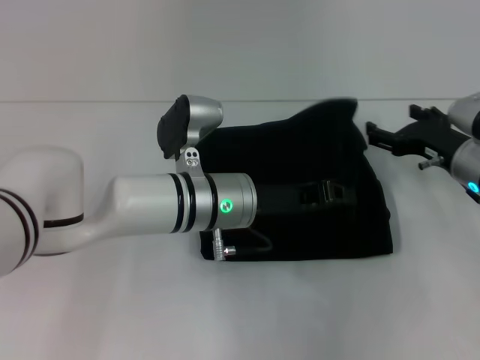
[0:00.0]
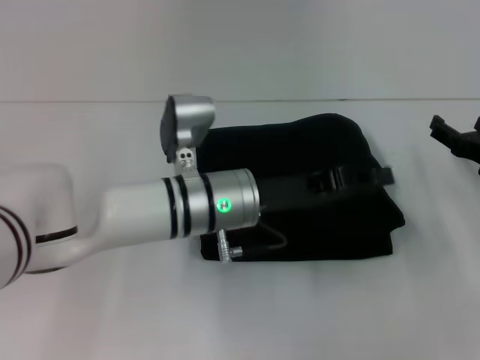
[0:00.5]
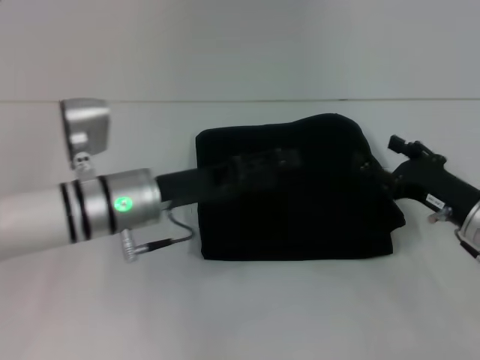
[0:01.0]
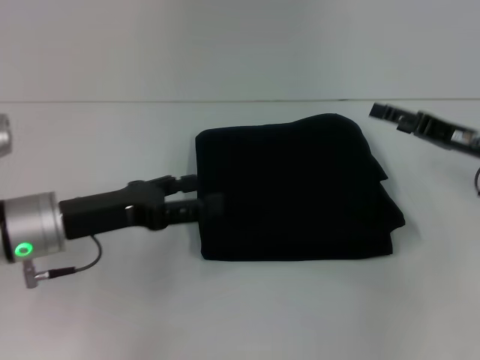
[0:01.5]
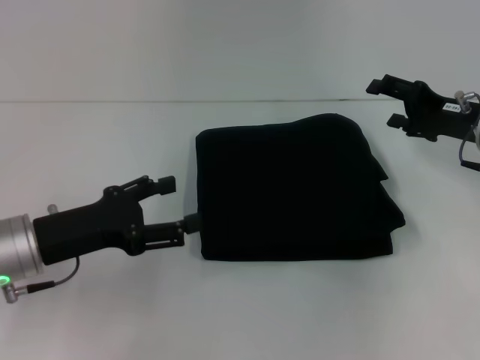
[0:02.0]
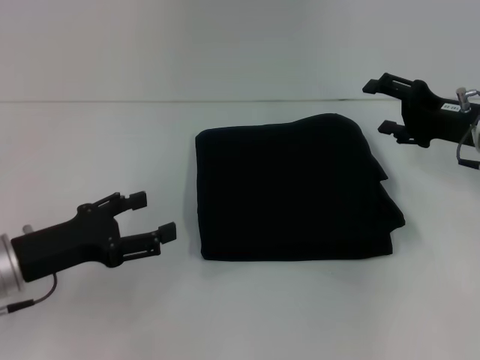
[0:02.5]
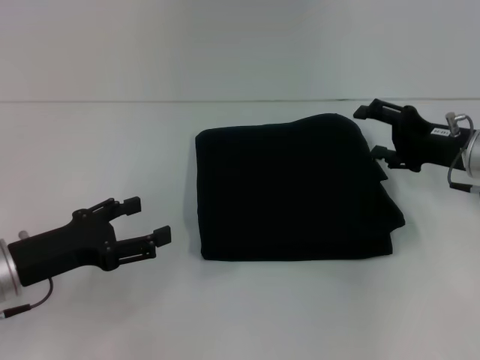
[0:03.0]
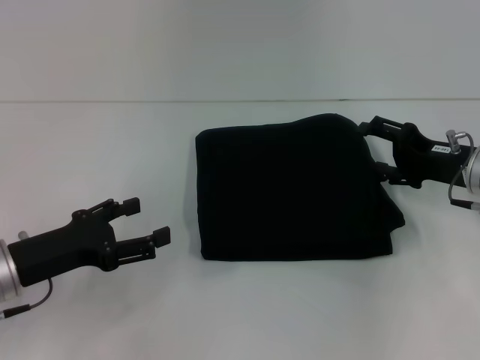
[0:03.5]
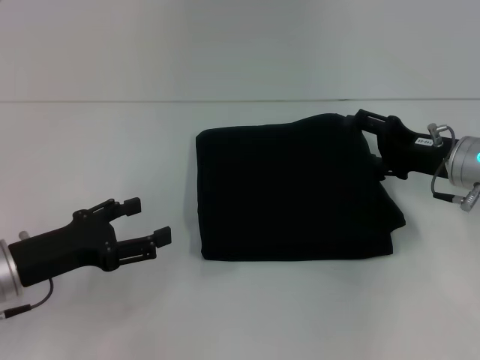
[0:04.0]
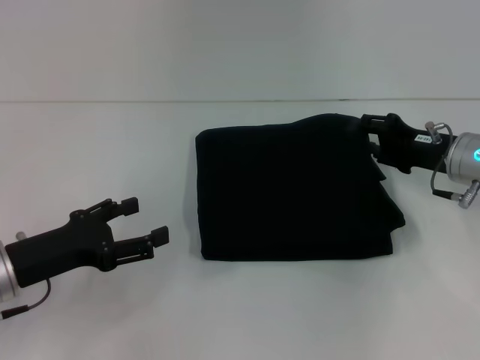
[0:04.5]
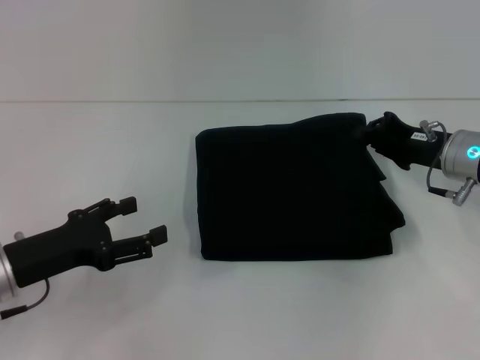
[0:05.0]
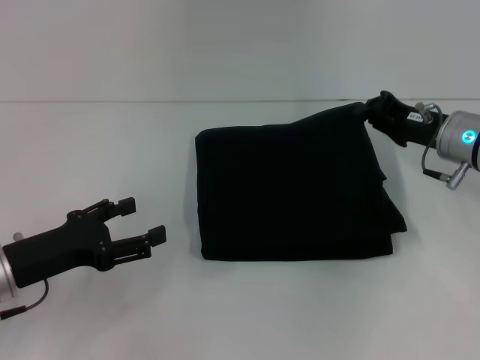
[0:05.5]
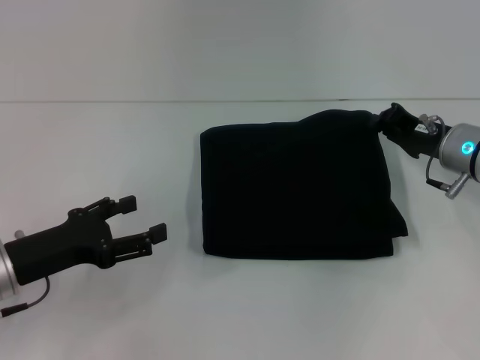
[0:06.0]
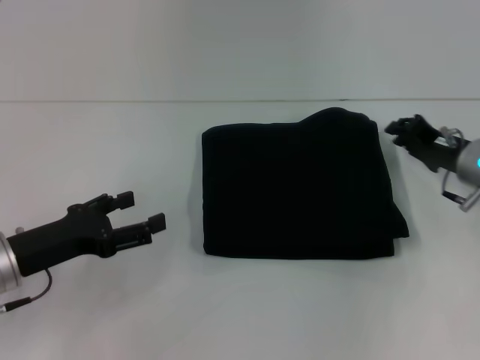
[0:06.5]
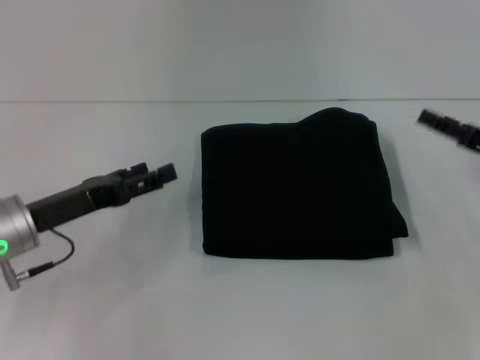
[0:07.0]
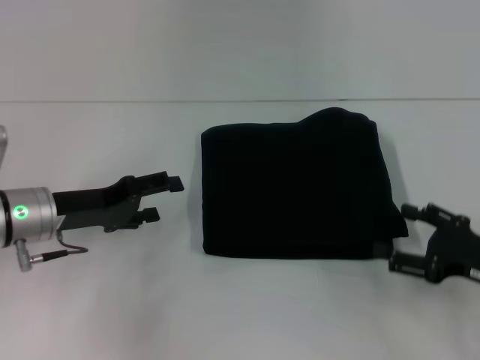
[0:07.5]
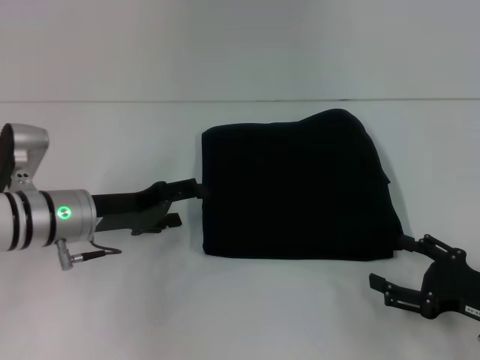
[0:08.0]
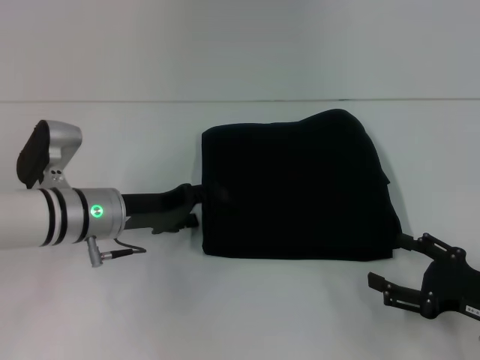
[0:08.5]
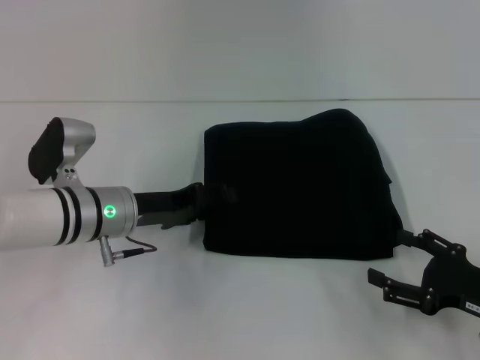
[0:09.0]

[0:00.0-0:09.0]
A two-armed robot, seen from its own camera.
0:00.0 to 0:02.0: The right gripper goes backward and returns, approximately 5 cm each way, while the left gripper shifts some 20 cm to the left, and opens up.
0:02.0 to 0:04.5: There are only small adjustments of the grippers.
0:04.5 to 0:07.0: The right gripper heads to the right, covering about 10 cm, and closes, then opens again.
0:07.0 to 0:09.0: The left gripper goes about 10 cm to the right and forward. Meanwhile the right gripper moves backward and downward, roughly 15 cm, and opens up.

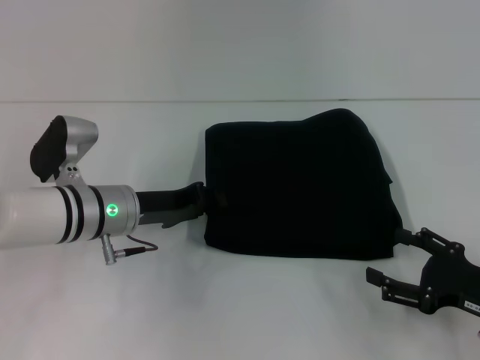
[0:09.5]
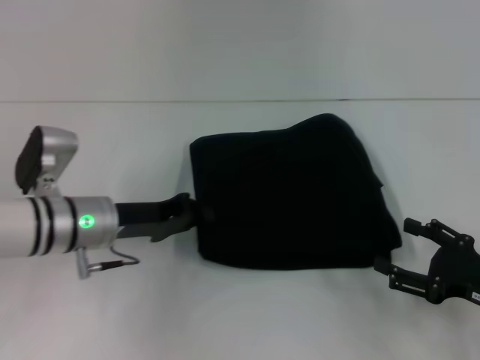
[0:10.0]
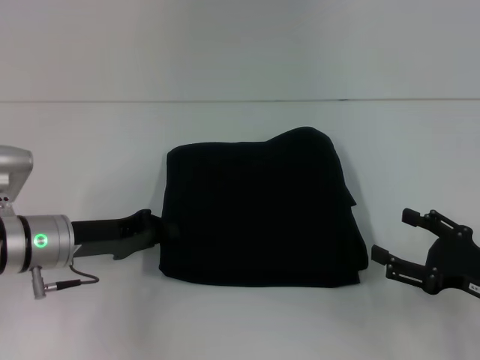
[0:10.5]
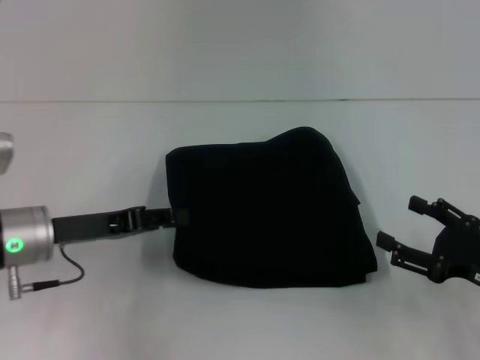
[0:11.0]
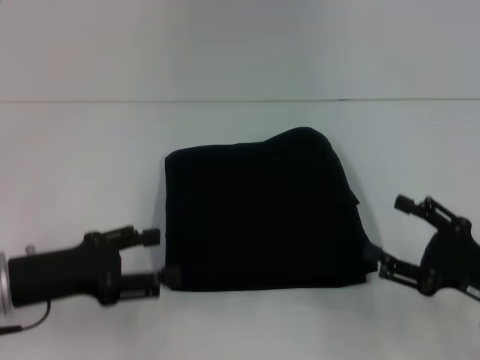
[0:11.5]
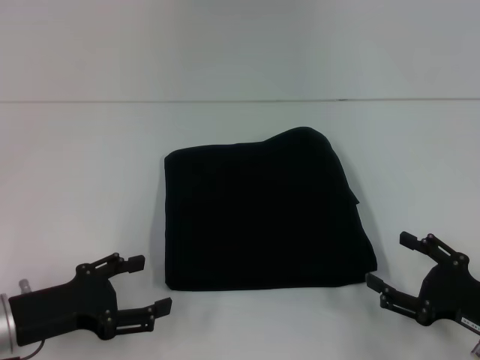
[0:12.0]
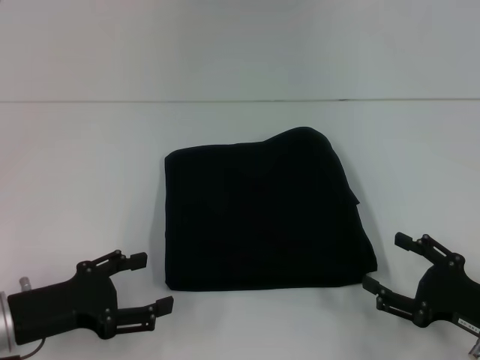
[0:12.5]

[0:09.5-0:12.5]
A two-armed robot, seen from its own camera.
0:09.5 to 0:11.0: The left gripper moves to the left, about 5 cm.
0:11.0 to 0:12.5: The left gripper heads backward, covering about 10 cm, and opens.
